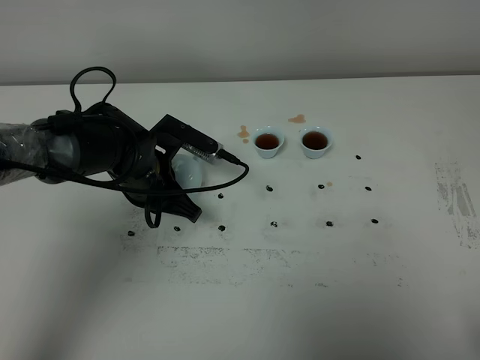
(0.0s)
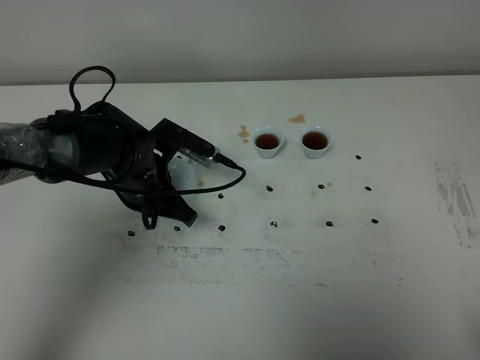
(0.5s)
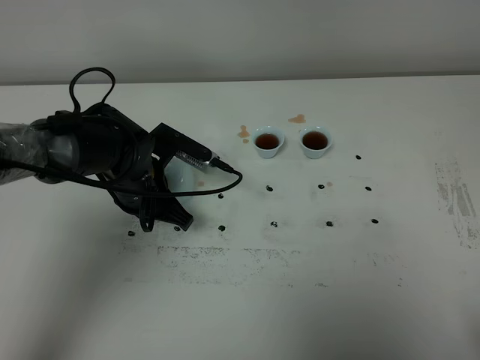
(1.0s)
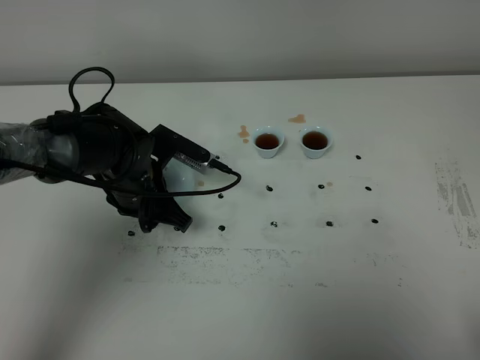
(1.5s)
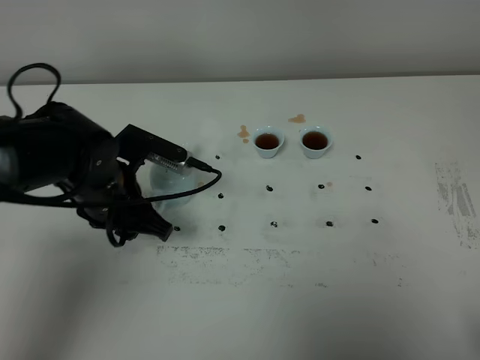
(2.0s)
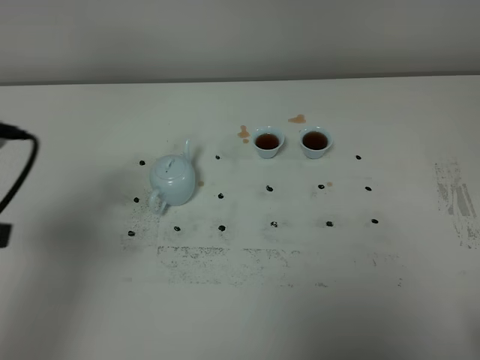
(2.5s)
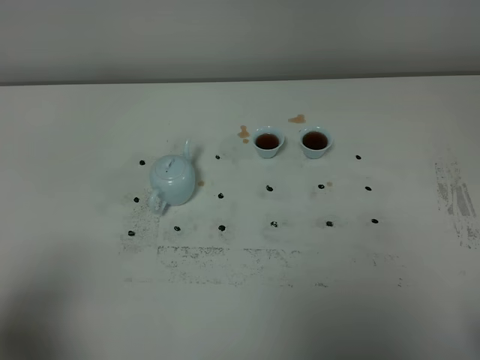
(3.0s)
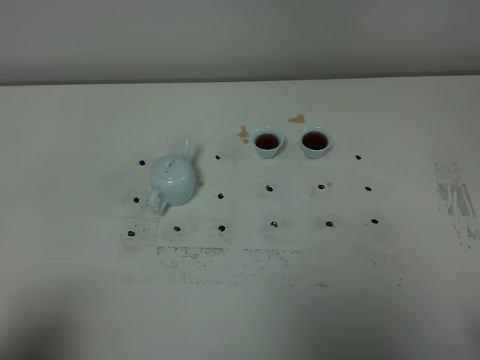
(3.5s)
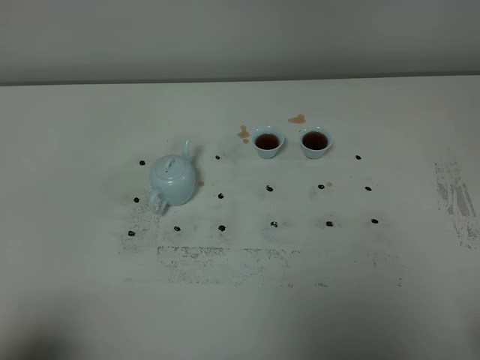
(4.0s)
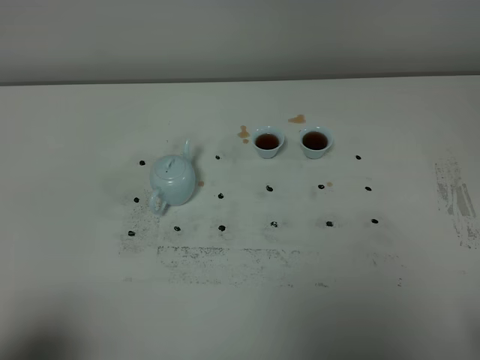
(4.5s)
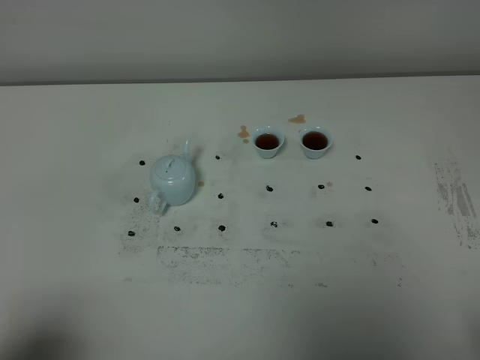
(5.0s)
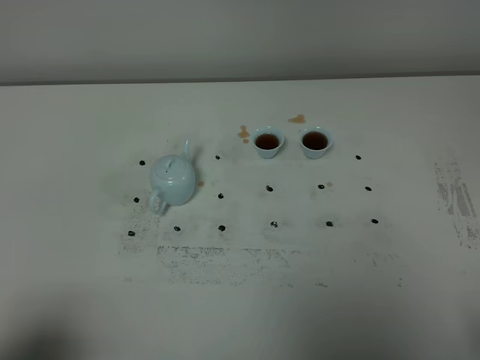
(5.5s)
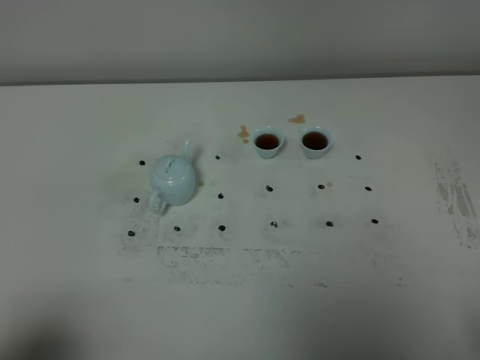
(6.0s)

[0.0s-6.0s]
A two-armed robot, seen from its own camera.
Task of the whole recording: grasp the blue porcelain teapot and pour the tea into the two blue porcelain teacups one by one, put the blue porcelain teapot back in its original place.
0.0s to 2.0s: The left gripper travels backward by some 5 cm, and opens.
2.0s to 4.0s: The left gripper shifts approximately 35 cm backward and to the left.
4.0s to 6.0s: Both grippers stay put.

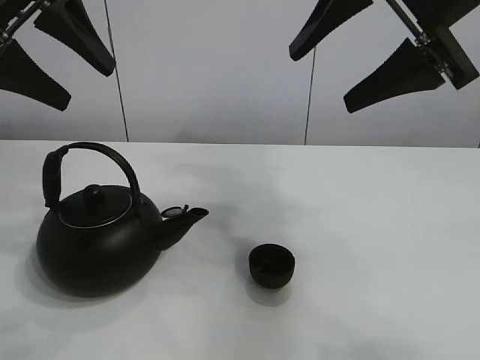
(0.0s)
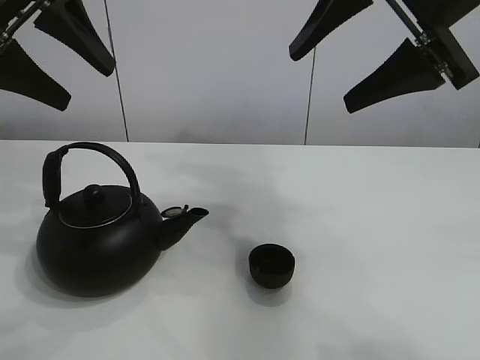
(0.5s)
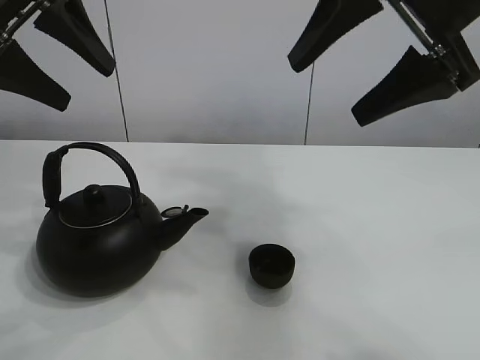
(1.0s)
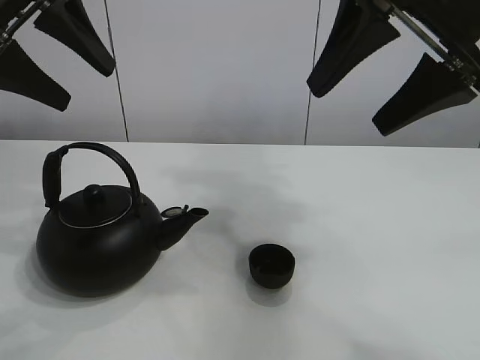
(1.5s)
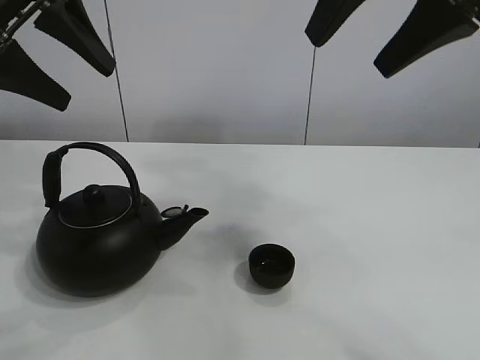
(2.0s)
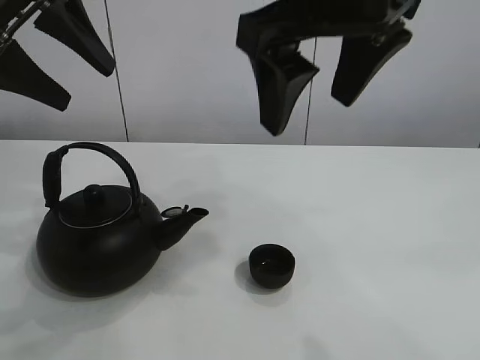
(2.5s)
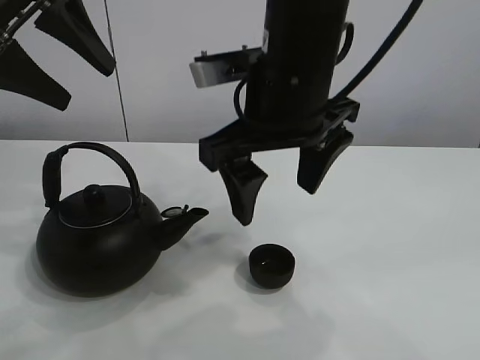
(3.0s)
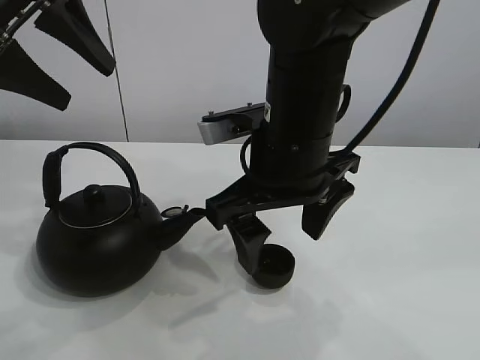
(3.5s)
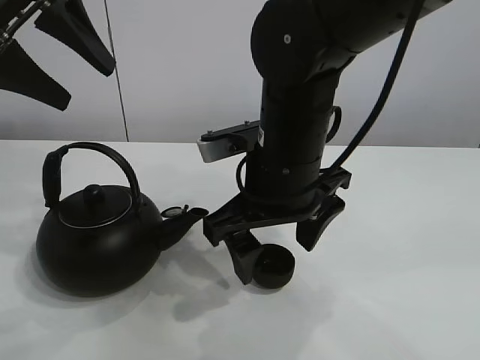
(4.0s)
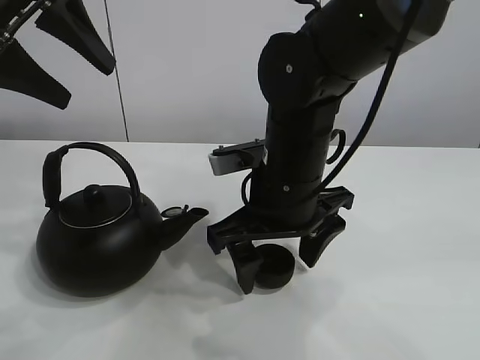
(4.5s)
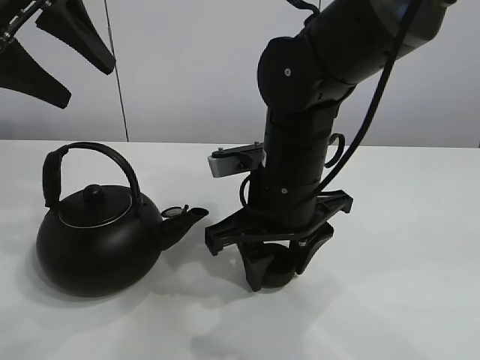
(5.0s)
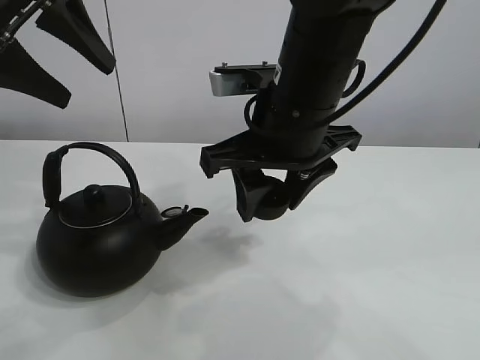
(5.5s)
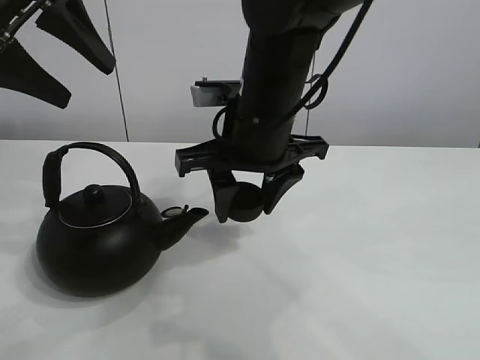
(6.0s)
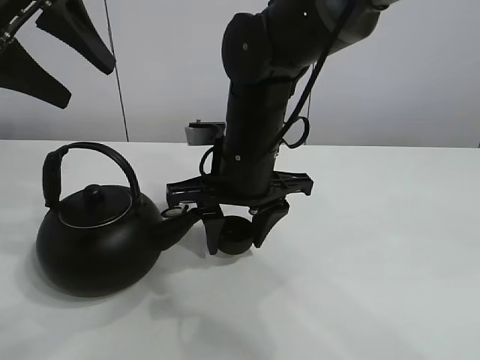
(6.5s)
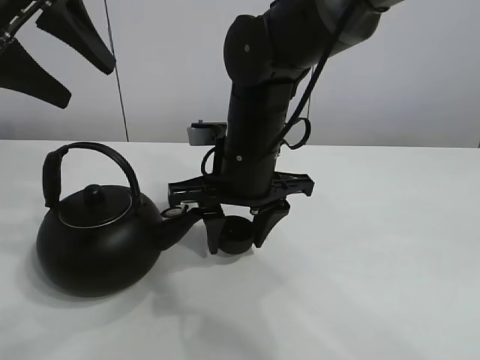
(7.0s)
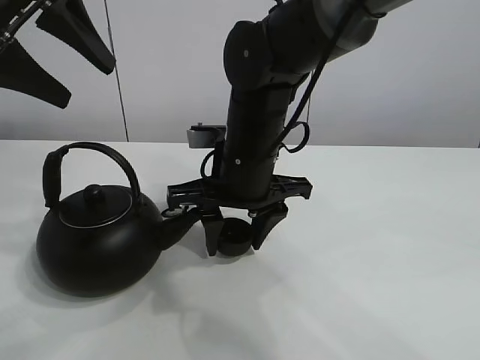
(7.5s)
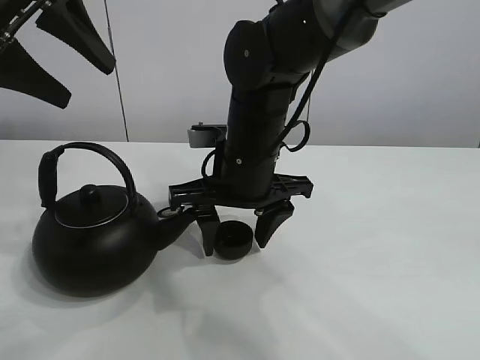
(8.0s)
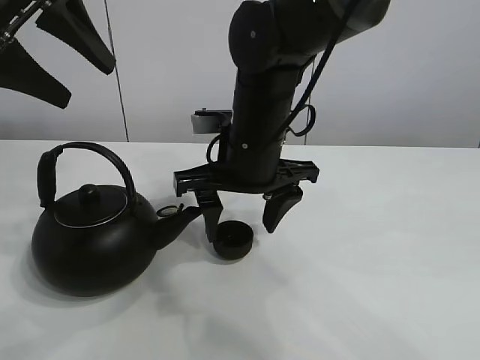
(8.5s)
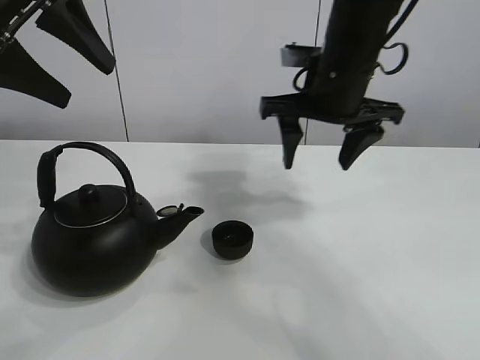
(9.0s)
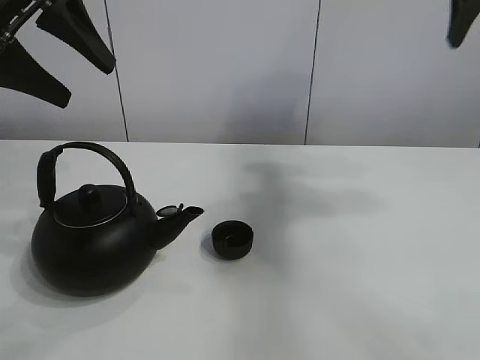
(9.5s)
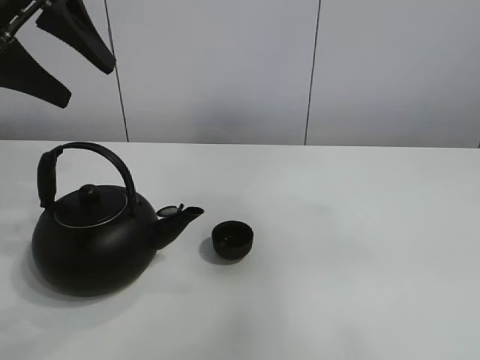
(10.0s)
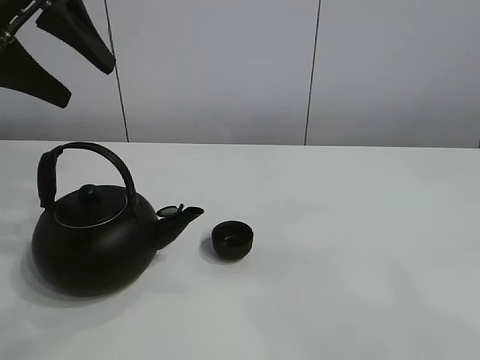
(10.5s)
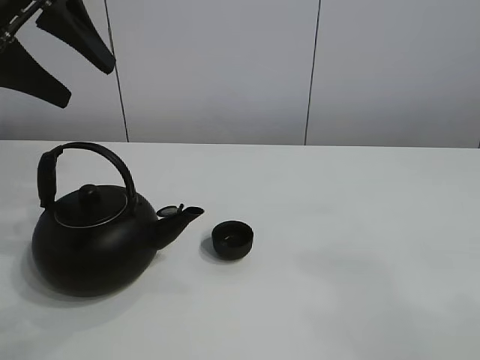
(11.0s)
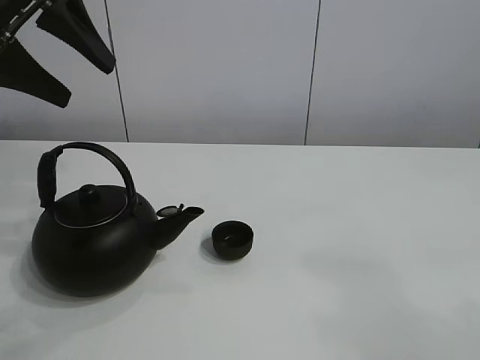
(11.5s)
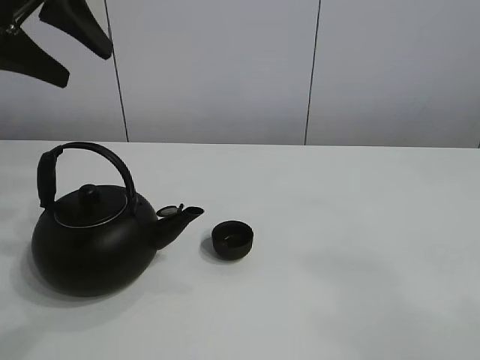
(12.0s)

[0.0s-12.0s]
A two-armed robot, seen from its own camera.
Task of the whole recording: pour tea into the teacup.
Step, 0.0s to 5.0s: Pick up the teacup with the right gripper.
Step, 5.5s to 8.0s: Place the teacup in the center of view with the right gripper.
2.0s to 4.0s: The right gripper heads downward and to the left, covering approximately 25 cm.
4.0s to 6.0s: The right gripper shifts by some 5 cm, and closes up.
6.0s to 8.0s: The right gripper ends up roughly 5 cm from where it was, and opens.
8.0s to 10.0s: The right gripper moves upward, backward and to the right, about 60 cm.
10.0s to 12.0s: The right gripper shifts about 25 cm downward.

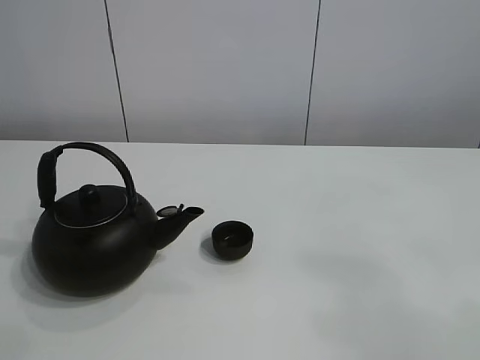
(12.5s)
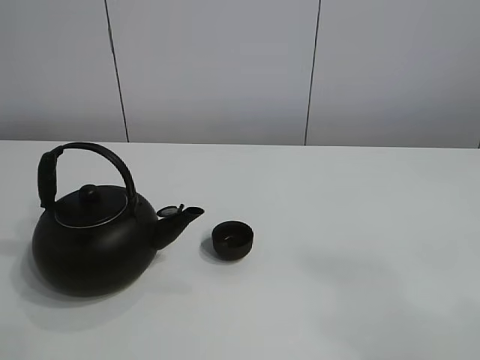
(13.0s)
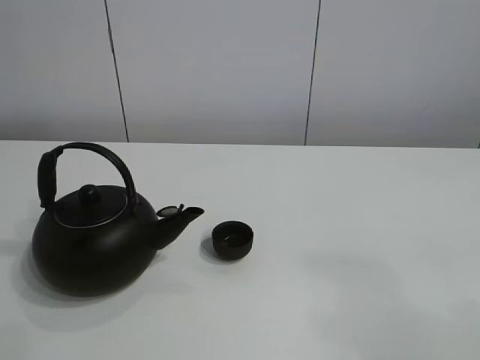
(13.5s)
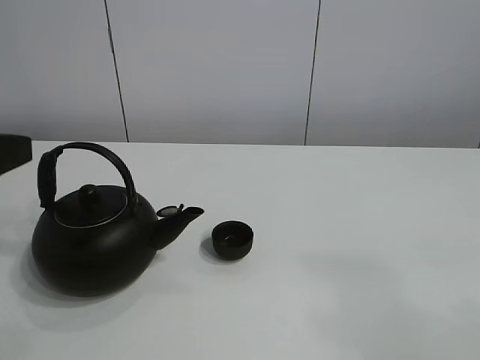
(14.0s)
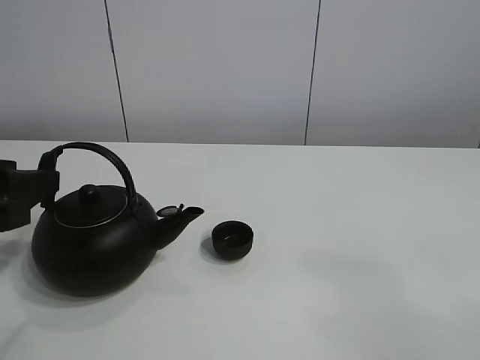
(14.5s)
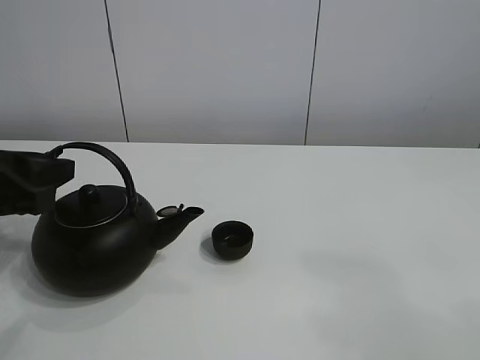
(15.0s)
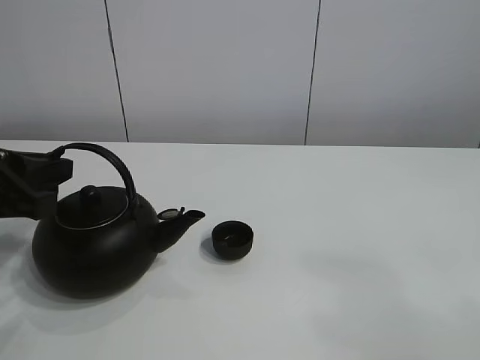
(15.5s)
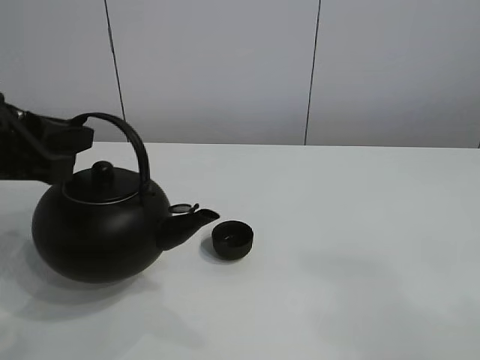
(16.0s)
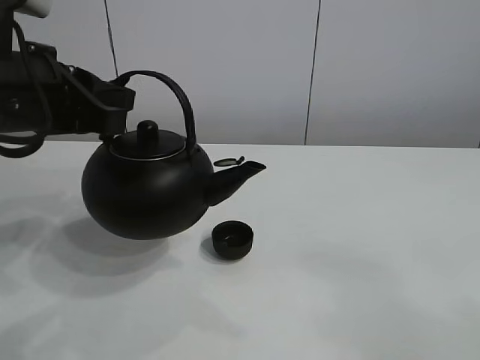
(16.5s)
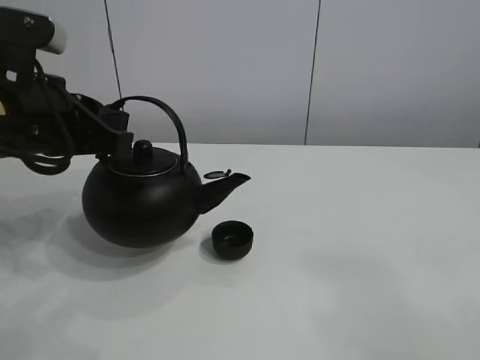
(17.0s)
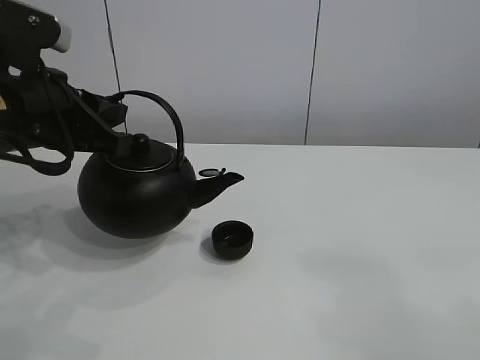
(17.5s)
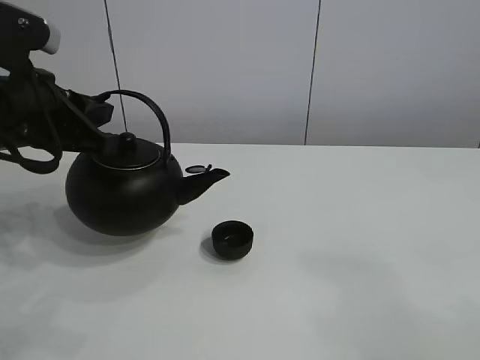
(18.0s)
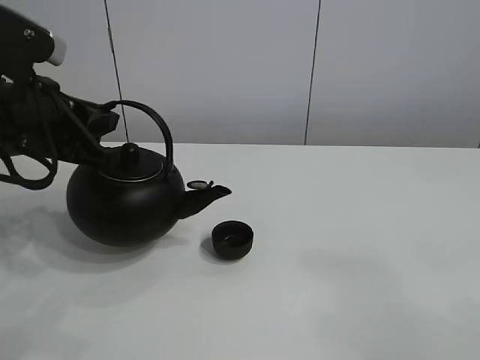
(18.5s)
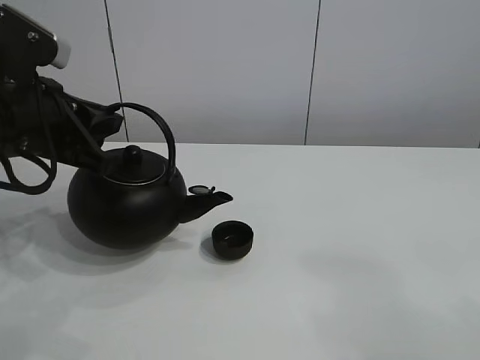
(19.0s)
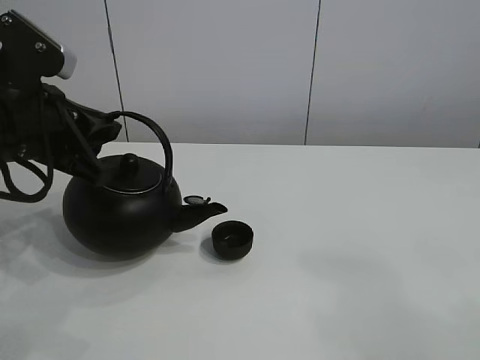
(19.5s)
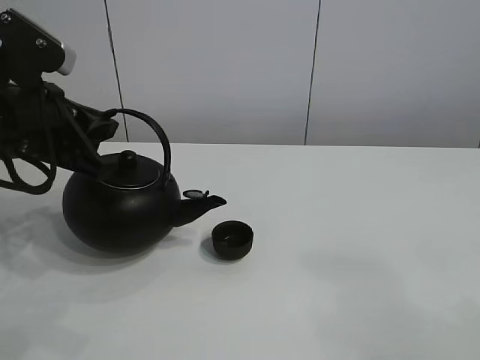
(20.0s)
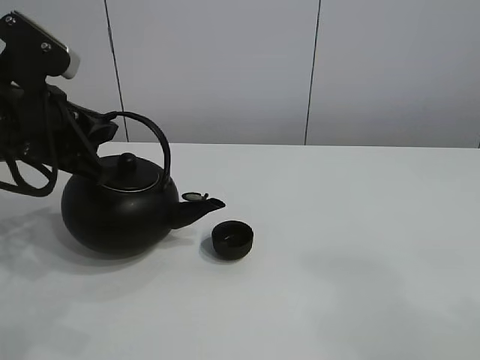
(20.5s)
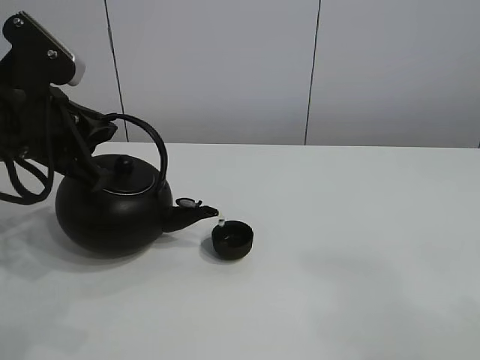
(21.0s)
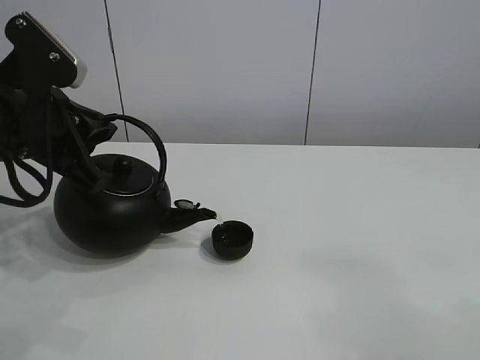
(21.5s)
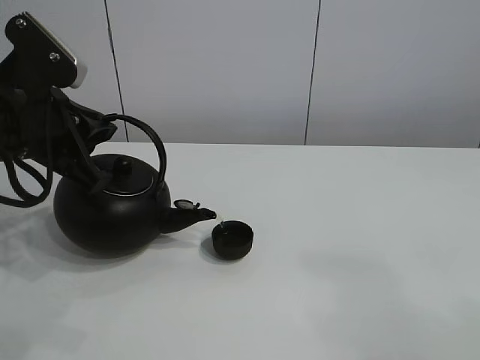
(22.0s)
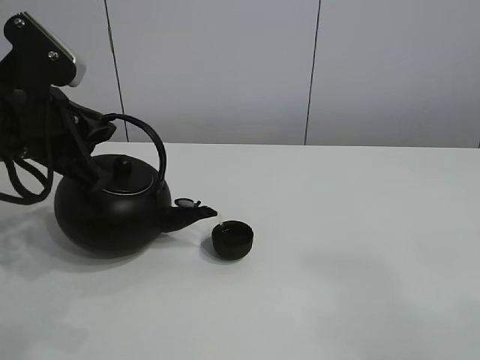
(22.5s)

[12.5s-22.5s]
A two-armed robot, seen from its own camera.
Task of the whole recording: pour tea into the teacup.
Step, 12.5s to 15.5s: Pick up the teapot with the left gripper.
12.5s to 14.5s: The left gripper travels downward by approximately 30 cm.
14.5s to 16.5s: The left gripper heads to the right and upward, covering approximately 10 cm, and closes its fingers.
16.5s to 20.5s: There are only small adjustments of the grippers.
20.5s to 22.5s: The grippers move only a little.
